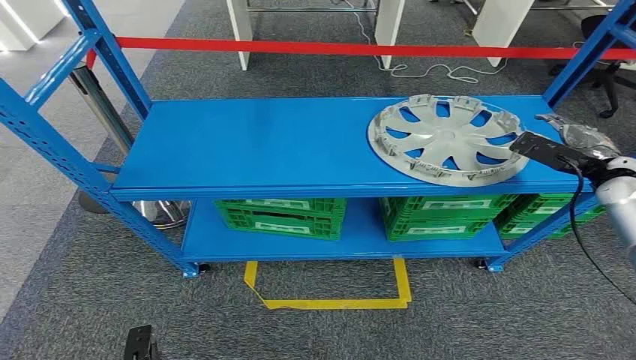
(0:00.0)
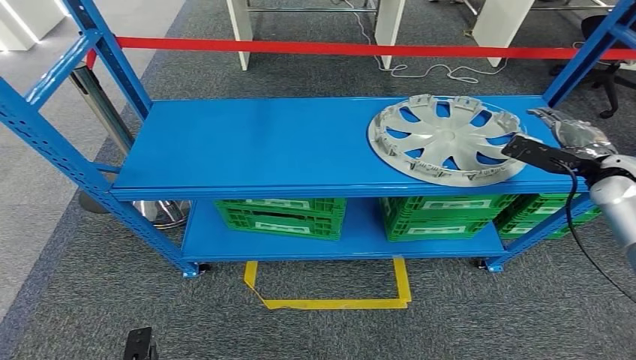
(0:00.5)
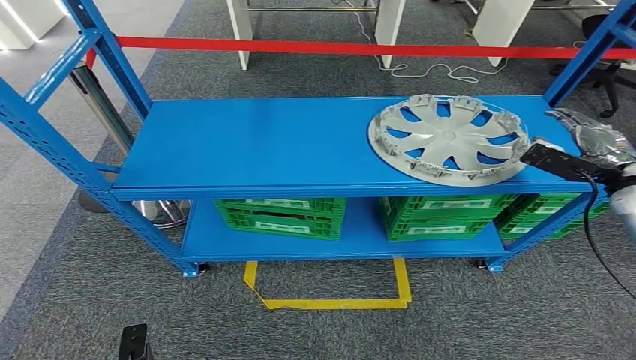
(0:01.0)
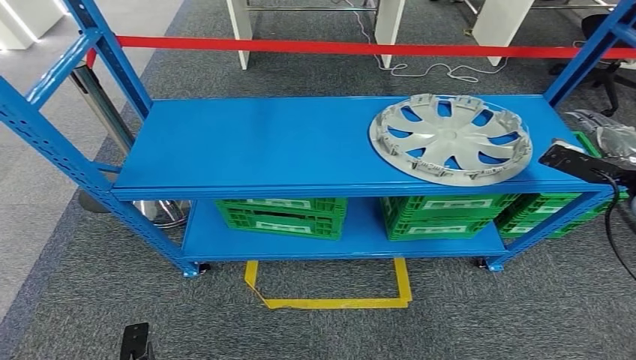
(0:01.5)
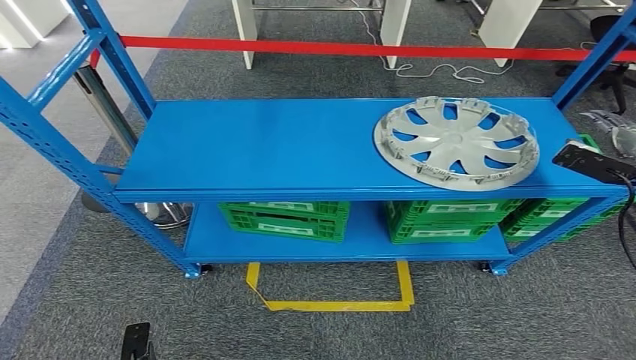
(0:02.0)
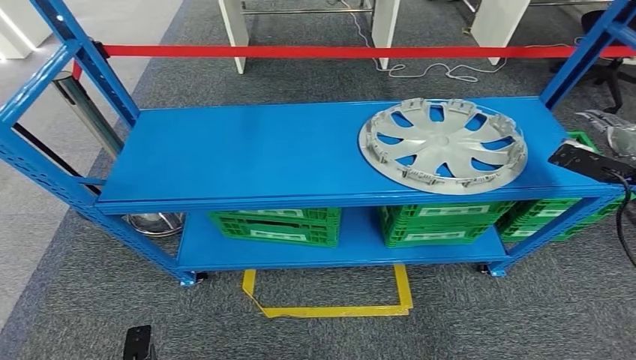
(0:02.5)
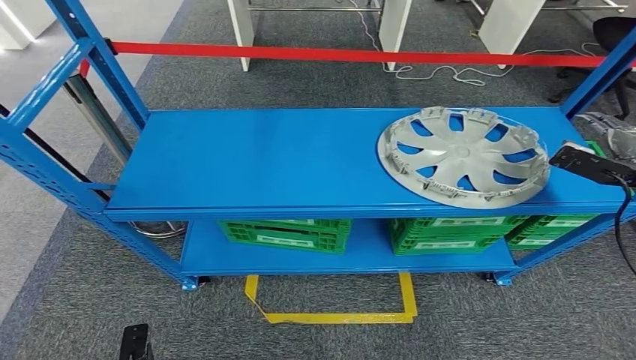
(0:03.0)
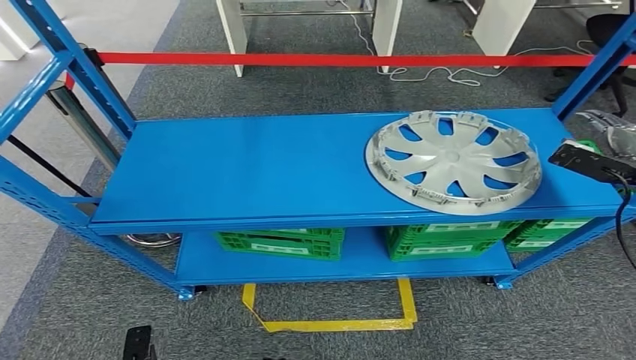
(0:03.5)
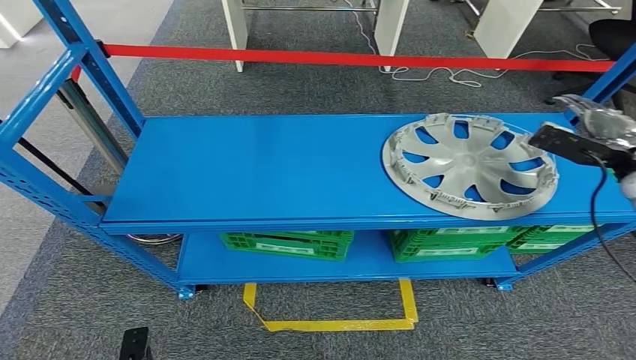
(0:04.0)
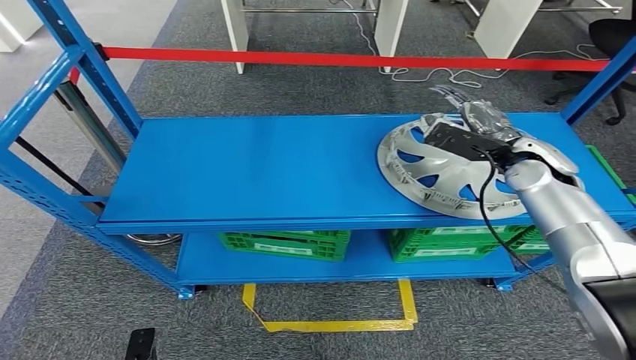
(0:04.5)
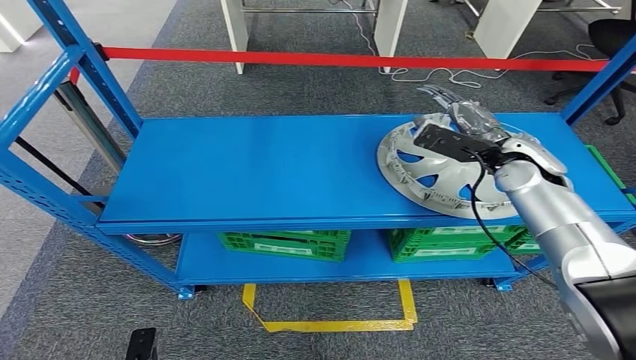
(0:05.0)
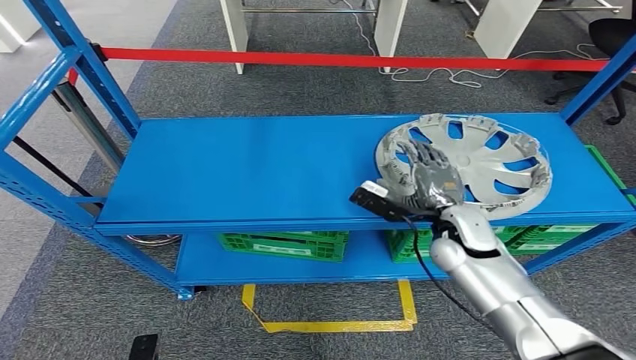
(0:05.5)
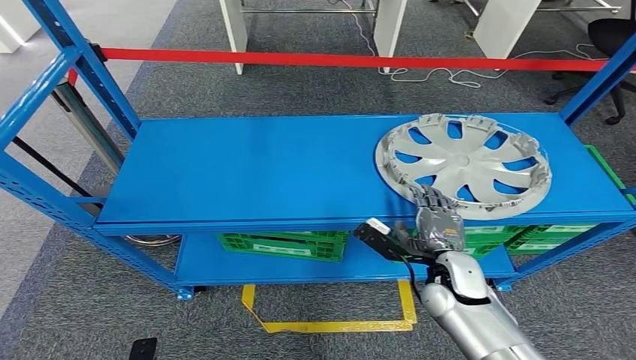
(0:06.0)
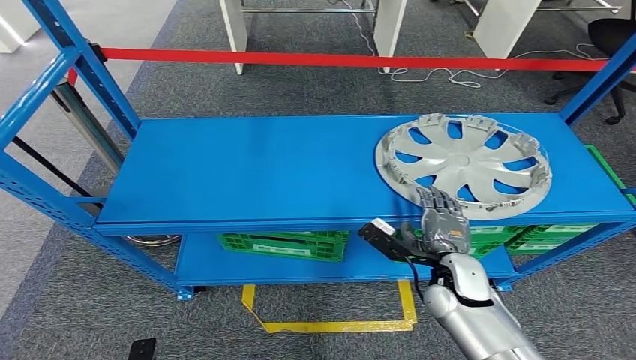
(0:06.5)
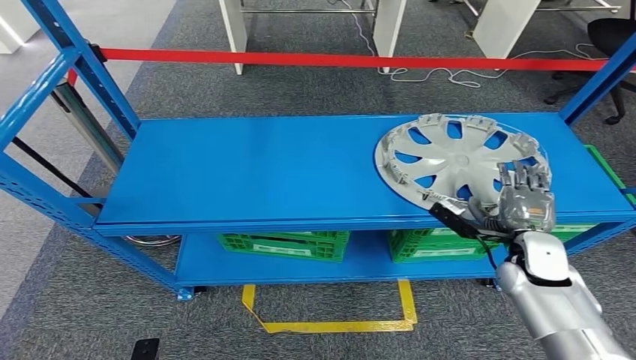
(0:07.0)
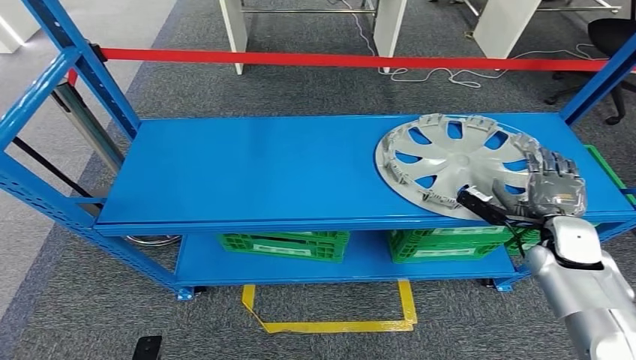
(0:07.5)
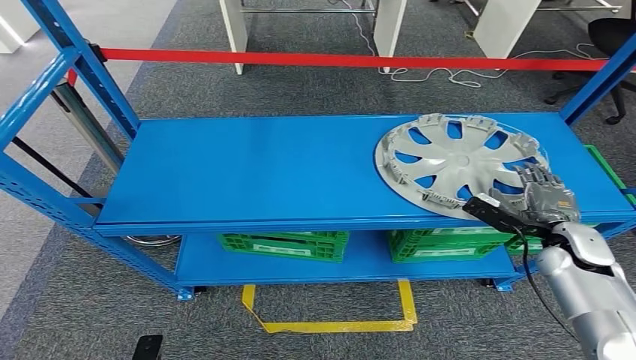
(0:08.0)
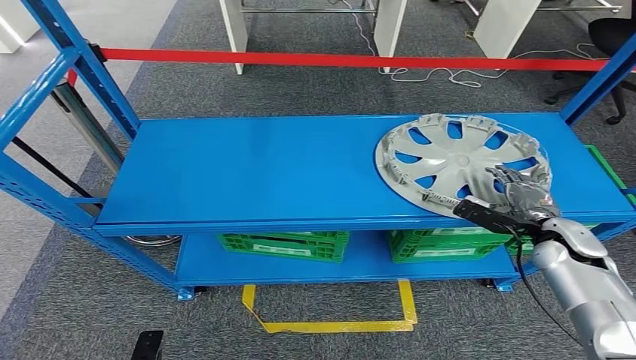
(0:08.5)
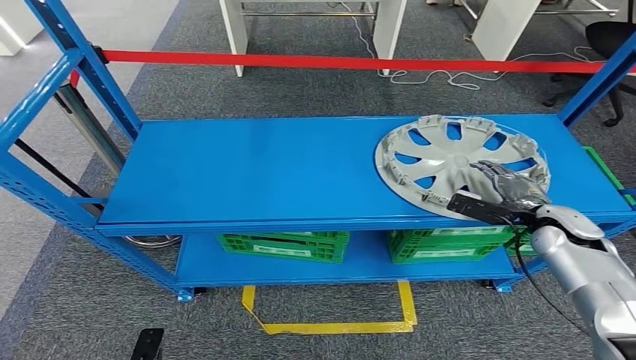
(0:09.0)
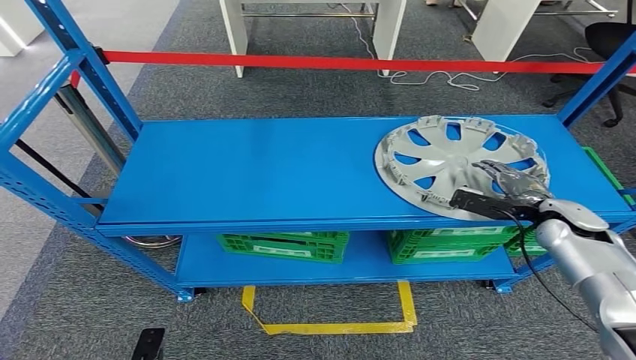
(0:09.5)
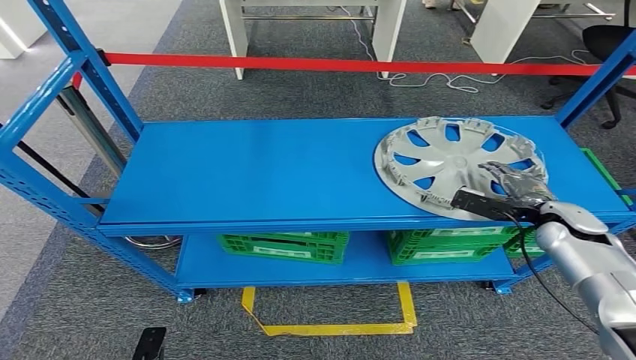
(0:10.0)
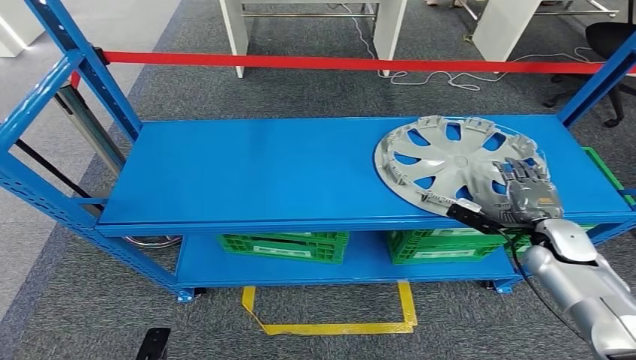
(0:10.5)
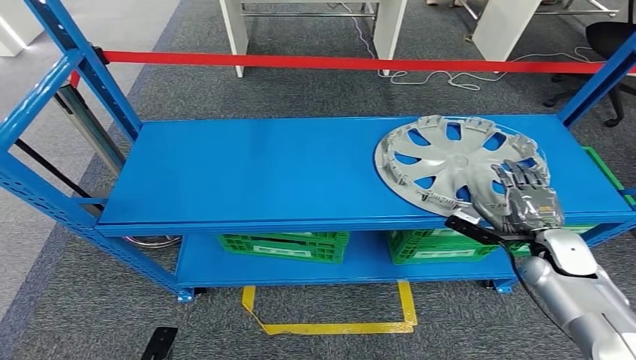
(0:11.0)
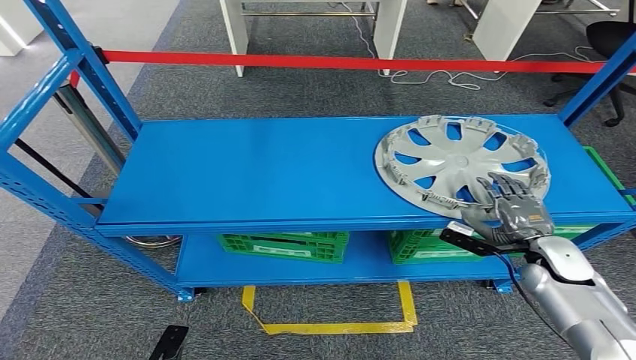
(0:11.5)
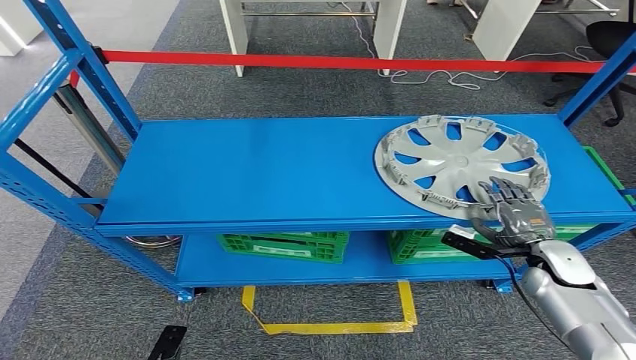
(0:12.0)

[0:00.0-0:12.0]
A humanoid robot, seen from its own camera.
0:04.0 to 0:06.0: The right hand travels to the left, downward and backward by about 35 cm.
0:06.0 to 0:08.0: The right hand is displaced to the right by some 20 cm.
0:10.0 to 0:12.0: The right hand heads backward and downward, covering approximately 10 cm.

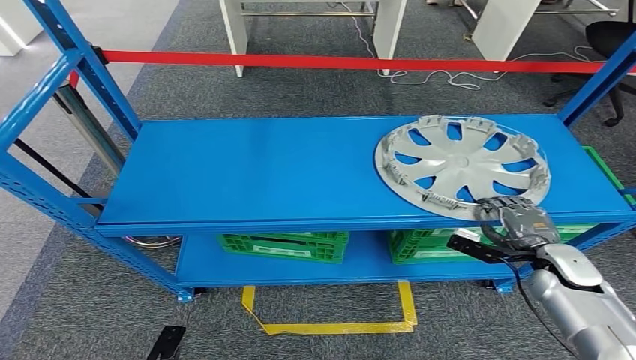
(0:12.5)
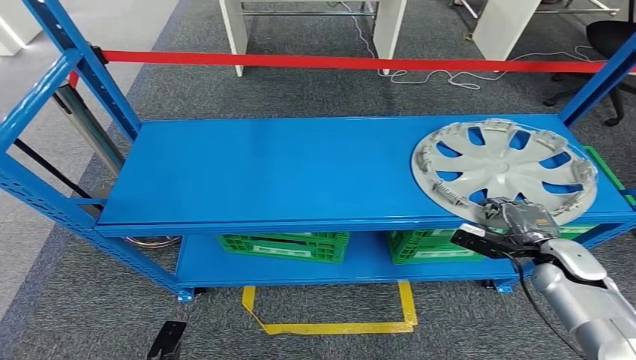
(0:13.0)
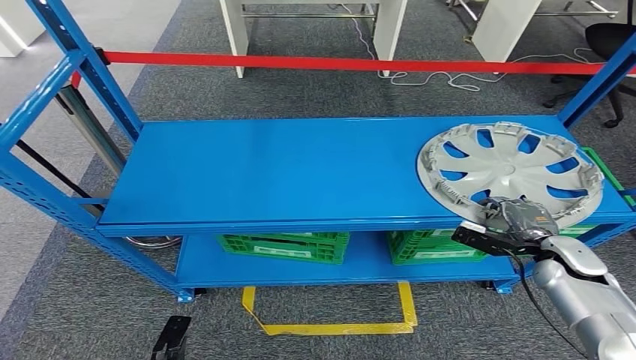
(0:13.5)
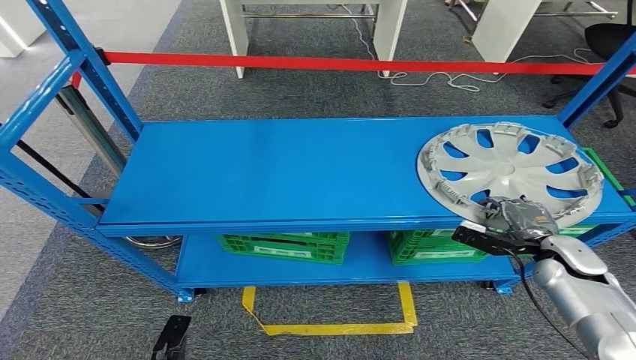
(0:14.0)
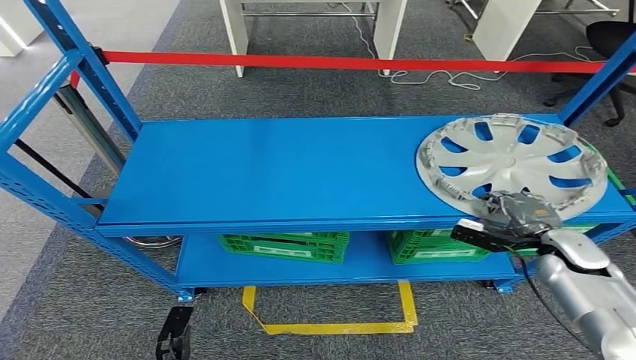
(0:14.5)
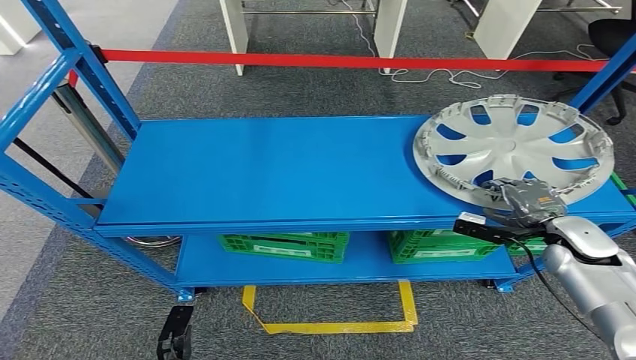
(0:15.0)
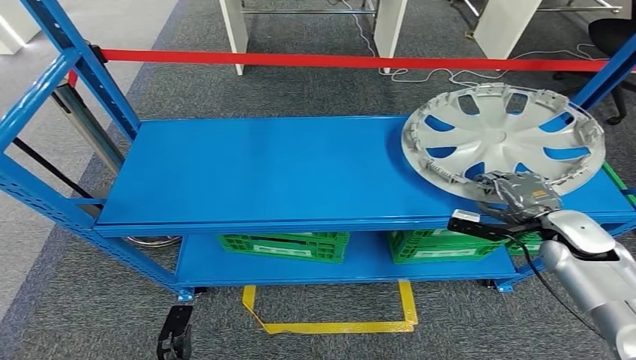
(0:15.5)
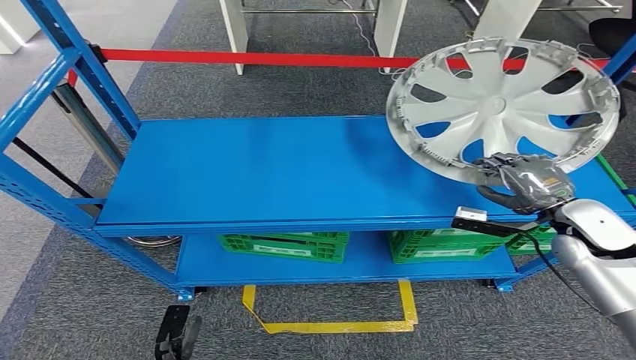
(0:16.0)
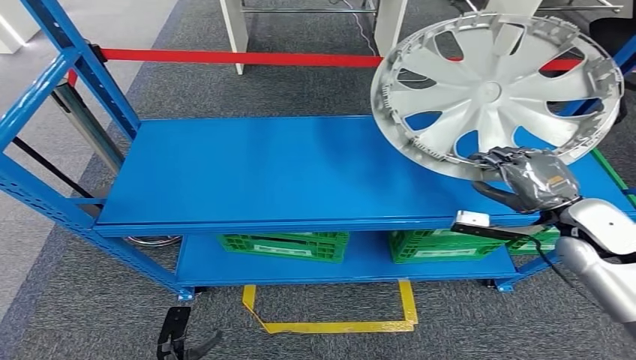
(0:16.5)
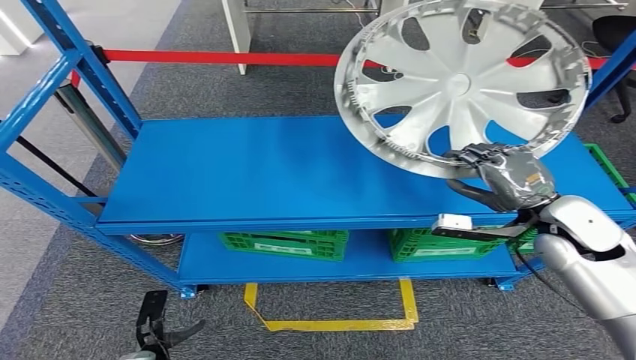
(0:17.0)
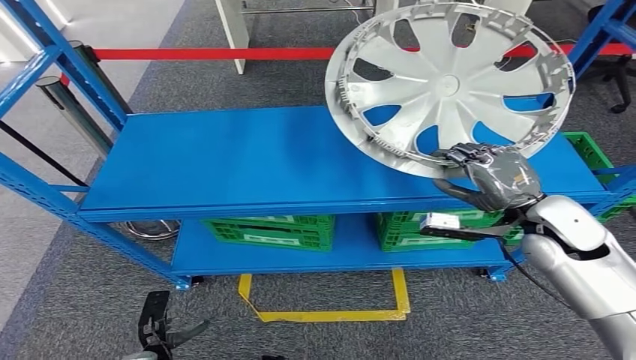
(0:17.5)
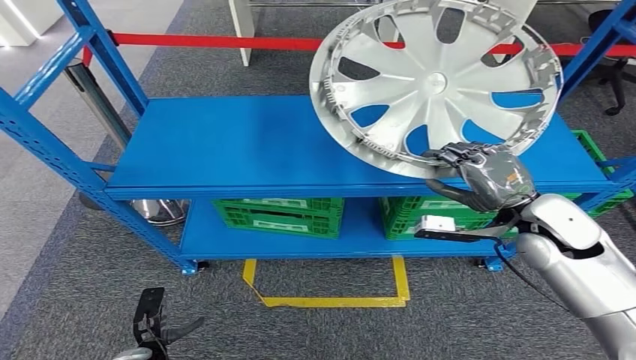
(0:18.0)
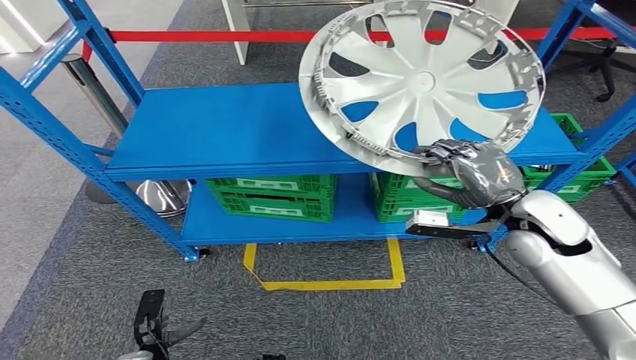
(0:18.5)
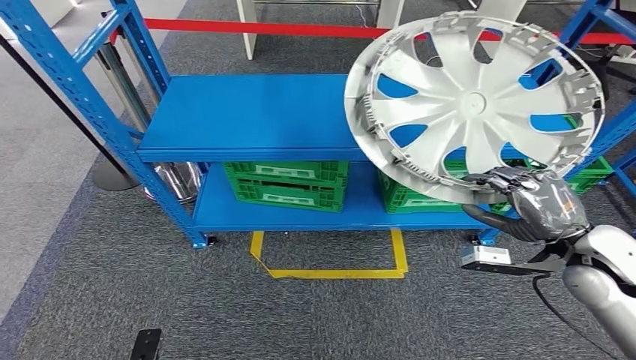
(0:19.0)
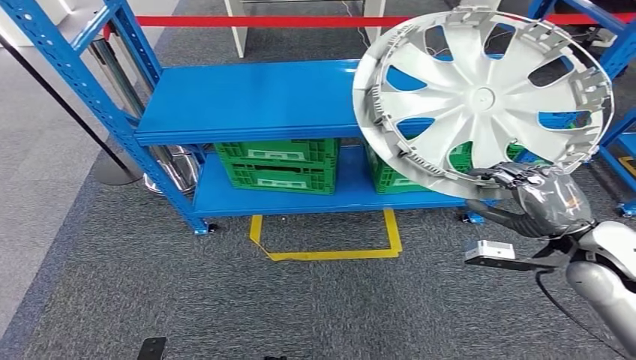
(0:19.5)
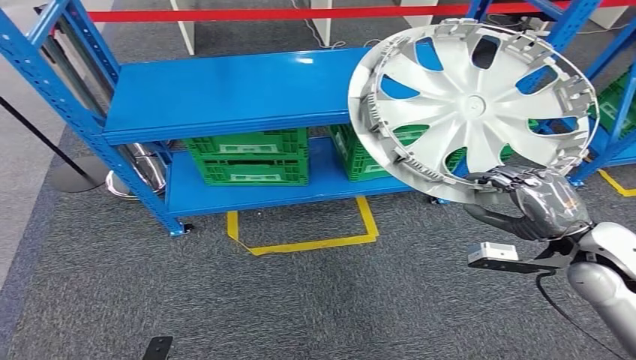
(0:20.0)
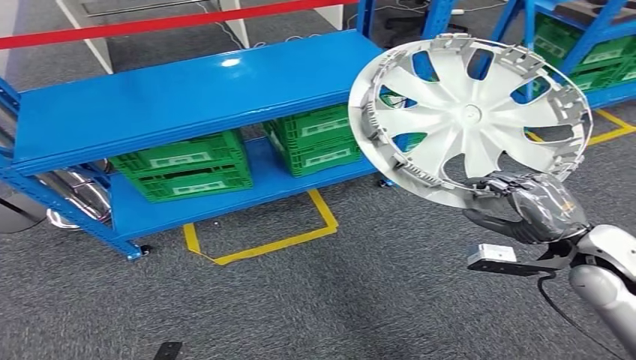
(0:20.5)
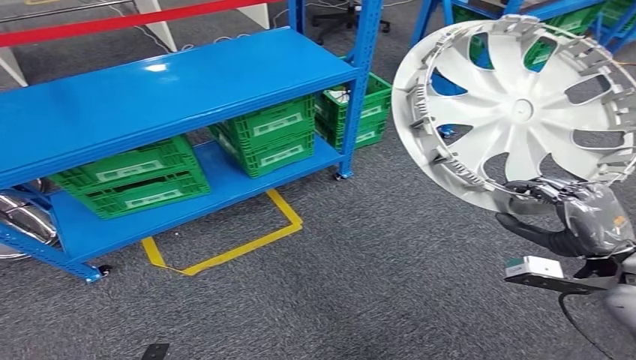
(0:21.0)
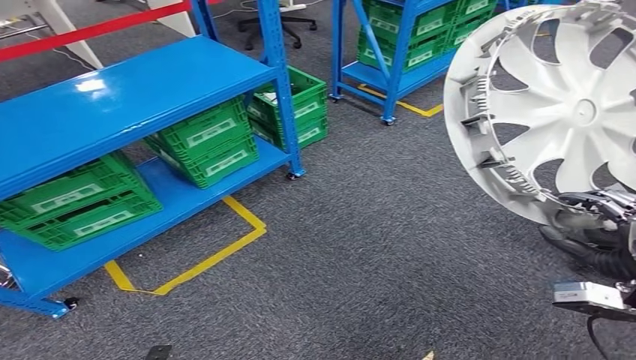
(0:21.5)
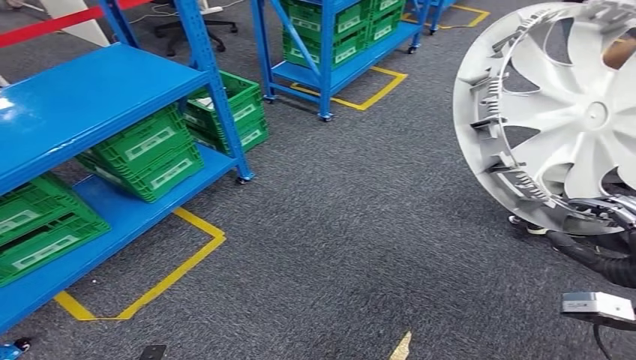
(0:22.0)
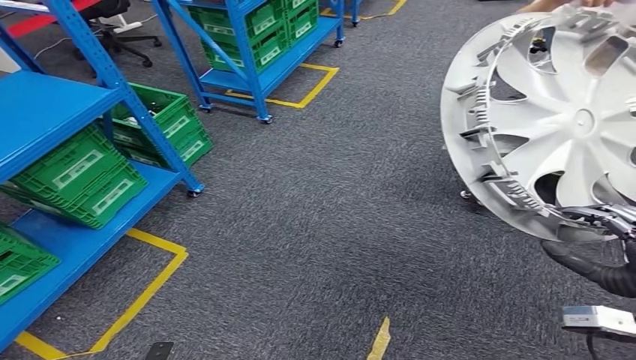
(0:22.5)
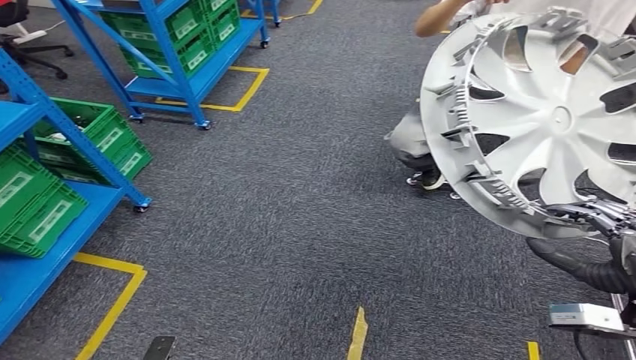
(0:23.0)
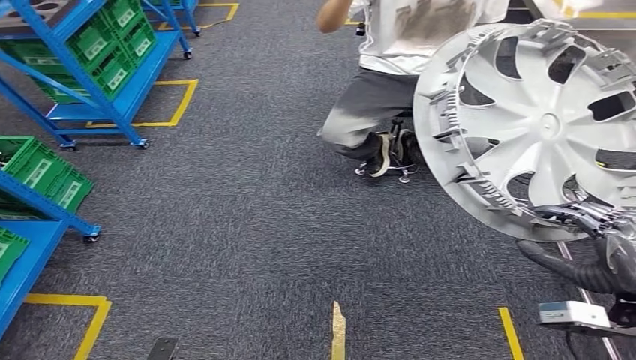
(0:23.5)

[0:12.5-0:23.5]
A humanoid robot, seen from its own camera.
Step, 0:12.5 to 0:16.5: Take small components from the rack.
0:12.5 to 0:14.5: There are only small adjustments of the hands.
